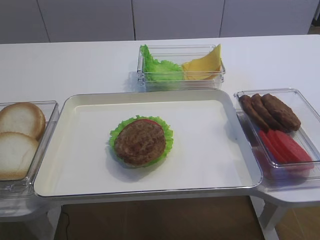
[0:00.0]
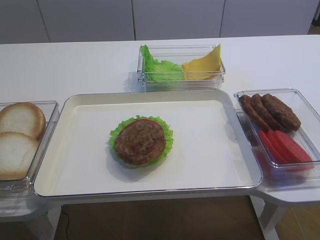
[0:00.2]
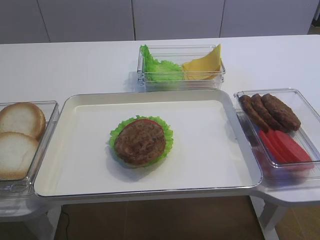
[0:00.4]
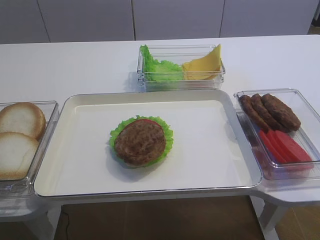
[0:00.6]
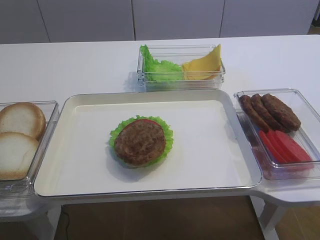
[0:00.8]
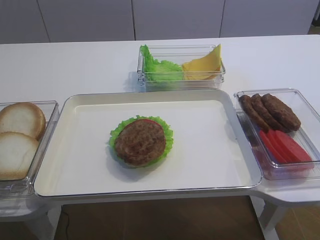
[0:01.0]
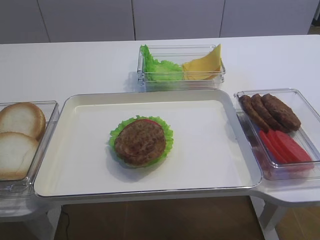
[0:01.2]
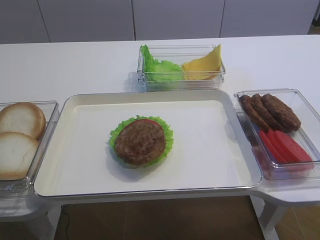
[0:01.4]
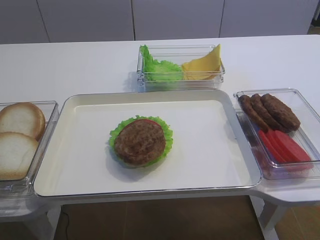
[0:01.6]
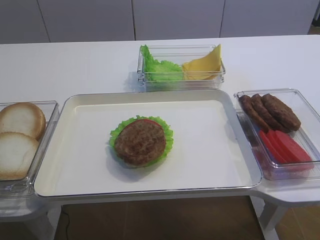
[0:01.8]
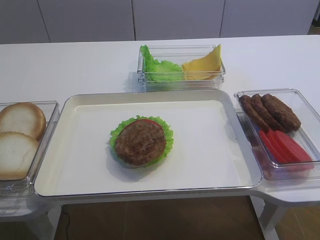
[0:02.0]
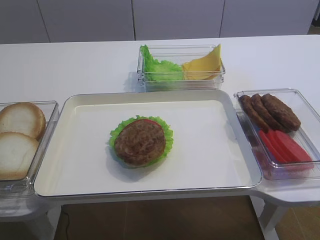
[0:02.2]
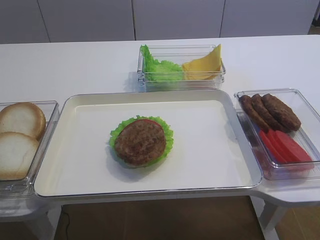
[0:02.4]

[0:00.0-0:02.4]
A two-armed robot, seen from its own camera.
0:00.0 to 0:01.2: The right gripper moves downward and backward, approximately 10 cm.

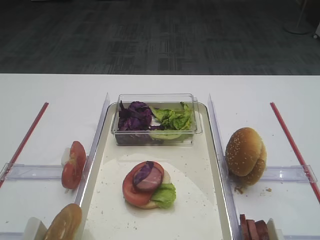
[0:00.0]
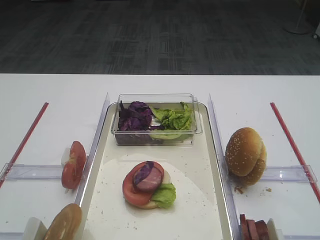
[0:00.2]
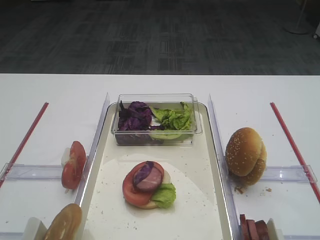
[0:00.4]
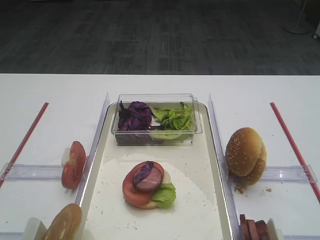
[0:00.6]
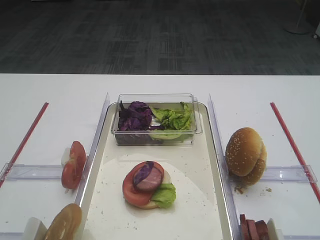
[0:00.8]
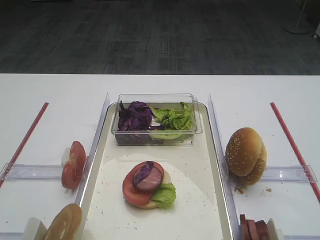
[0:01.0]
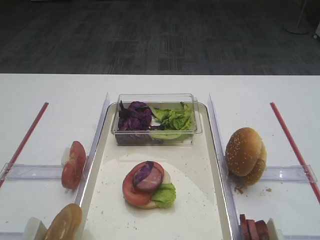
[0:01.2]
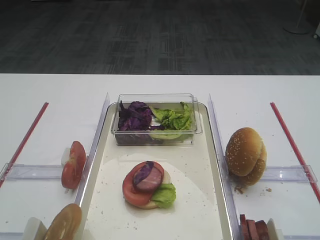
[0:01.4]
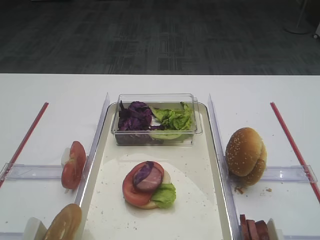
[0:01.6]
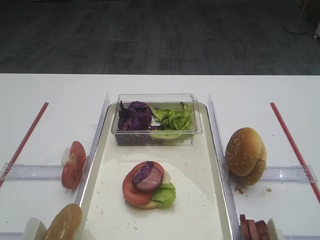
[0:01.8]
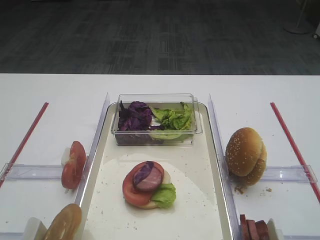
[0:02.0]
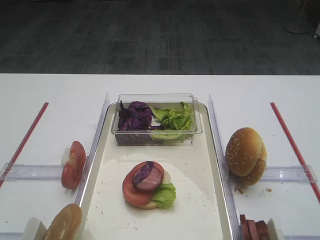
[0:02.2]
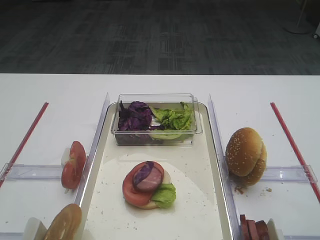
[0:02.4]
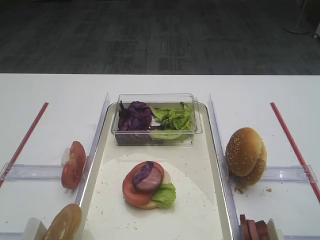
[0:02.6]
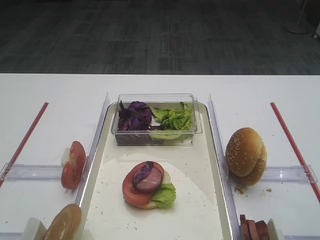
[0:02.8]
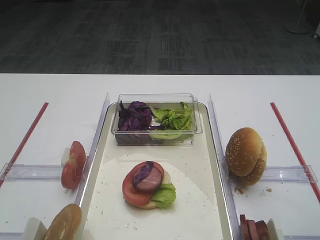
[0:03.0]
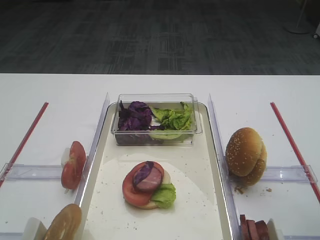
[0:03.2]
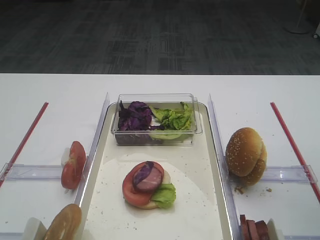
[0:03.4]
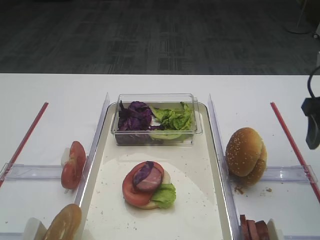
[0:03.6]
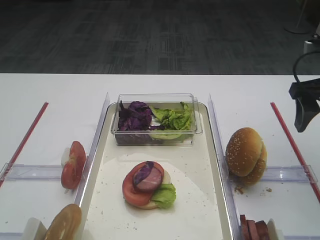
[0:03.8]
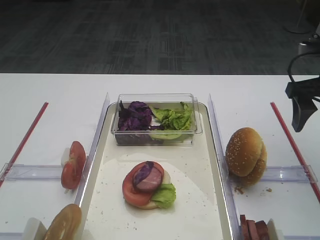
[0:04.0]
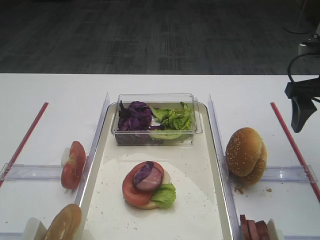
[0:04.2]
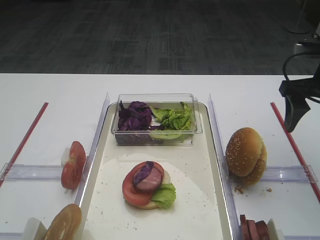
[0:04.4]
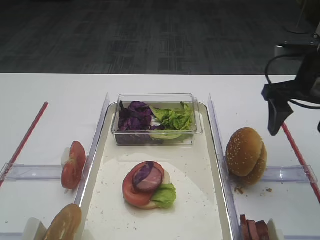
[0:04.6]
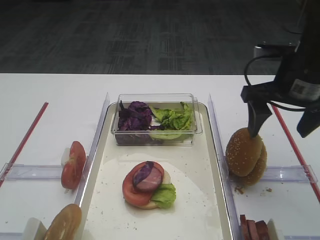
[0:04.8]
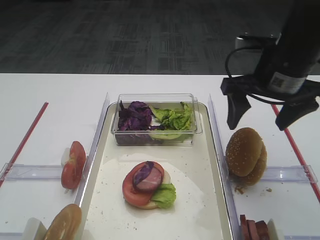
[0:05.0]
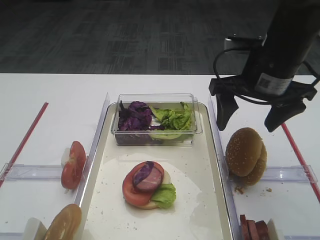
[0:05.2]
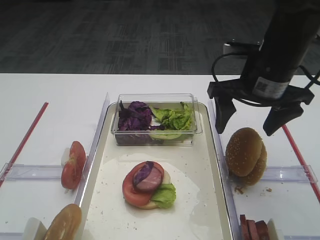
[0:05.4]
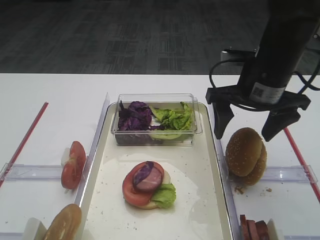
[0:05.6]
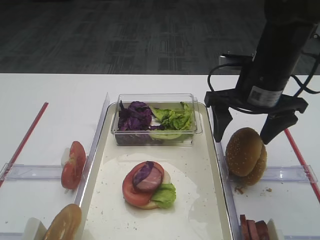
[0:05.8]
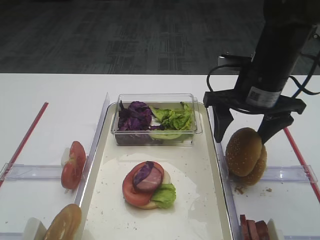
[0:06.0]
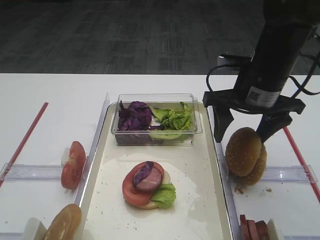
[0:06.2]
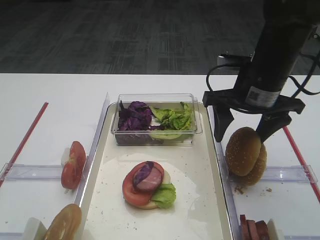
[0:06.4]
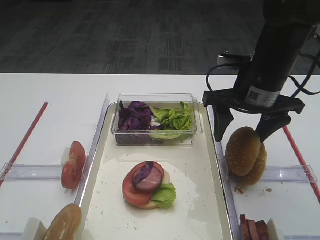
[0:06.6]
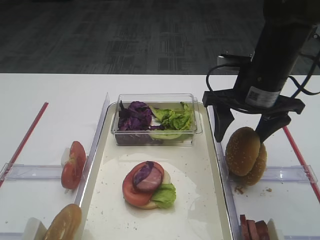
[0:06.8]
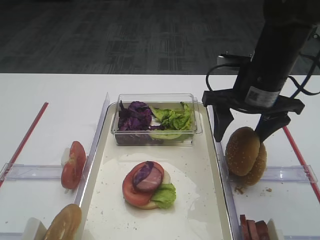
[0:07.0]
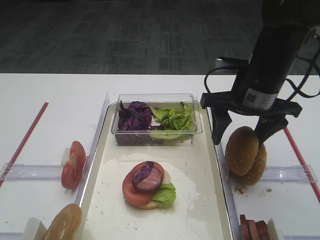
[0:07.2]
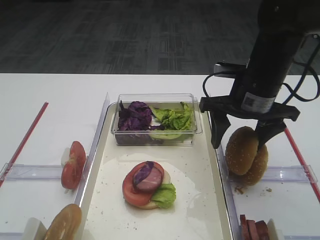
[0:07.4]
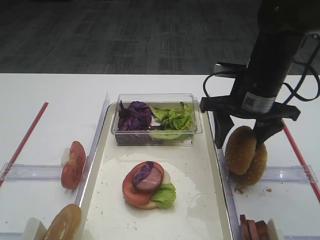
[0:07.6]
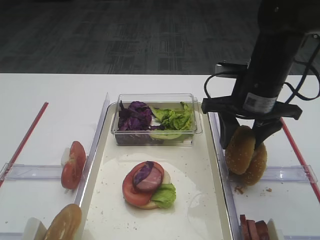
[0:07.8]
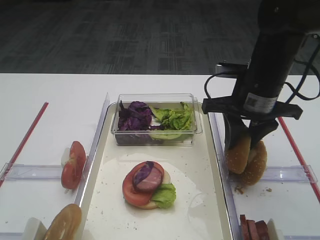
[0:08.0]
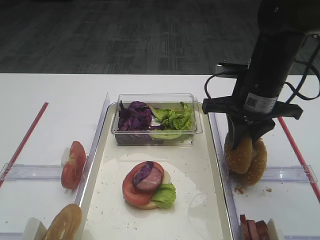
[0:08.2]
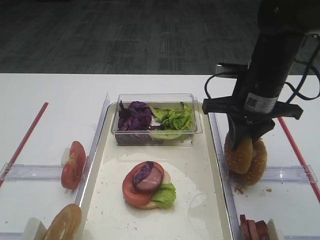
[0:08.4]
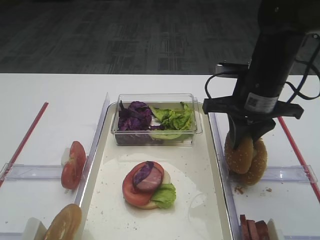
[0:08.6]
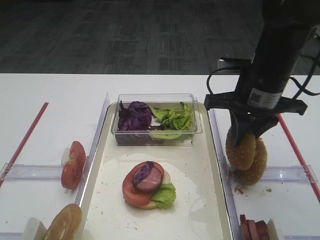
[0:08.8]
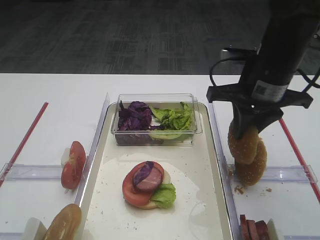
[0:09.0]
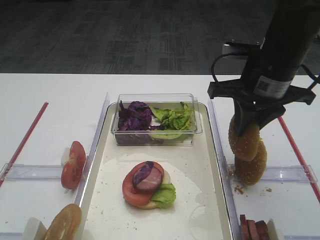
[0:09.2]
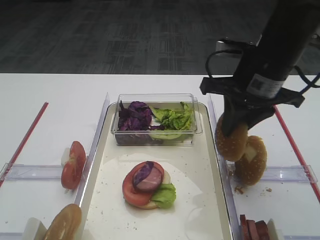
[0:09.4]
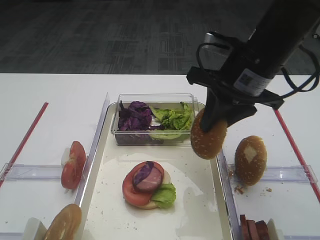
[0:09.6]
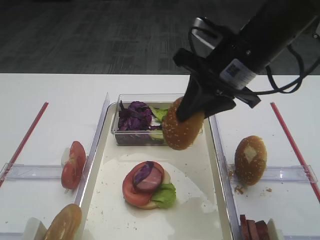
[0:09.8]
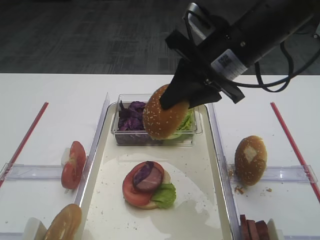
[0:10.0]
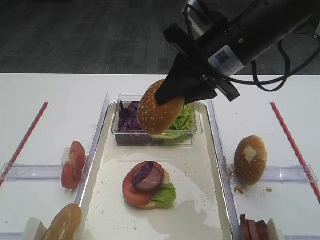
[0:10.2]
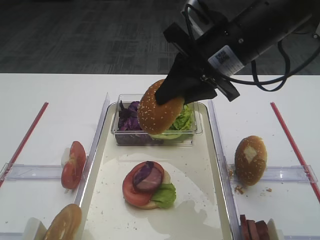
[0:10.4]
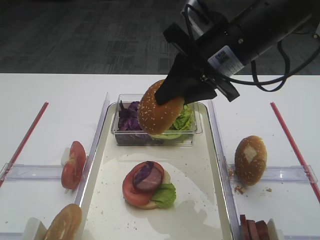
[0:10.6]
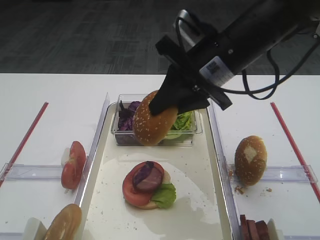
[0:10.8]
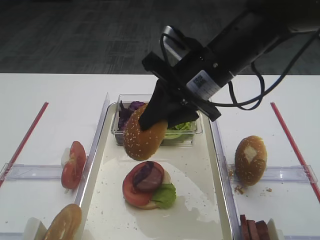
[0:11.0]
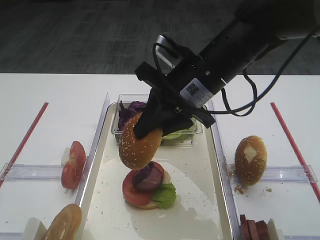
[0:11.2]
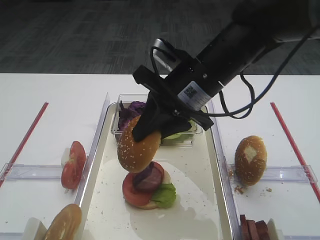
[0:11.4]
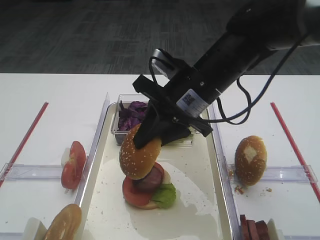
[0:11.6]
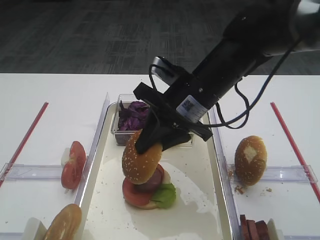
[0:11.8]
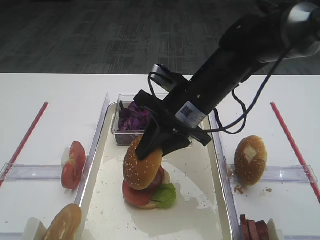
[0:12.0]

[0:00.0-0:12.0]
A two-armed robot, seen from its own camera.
Step, 0:00.0 to 0:09.0: Pick up the hamburger lid with the right gripper.
0:03.0 to 0:04.4: The right gripper heads forward, covering about 20 cm.
0:04.4 to 0:06.0: The right gripper is displaced to the left by roughly 10 cm.
0:06.0 to 0:07.6: The two grippers keep their place.
0:07.6 to 0:09.0: The right gripper closes up.
0:09.0 to 0:10.4: The right gripper shifts roughly 5 cm to the left.
0:10.4 to 0:12.0: The right gripper goes about 10 cm downward.

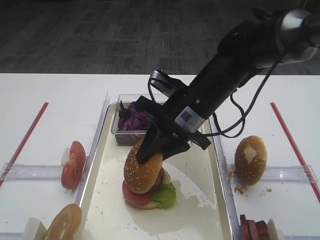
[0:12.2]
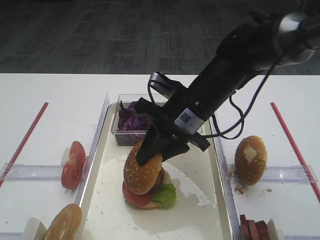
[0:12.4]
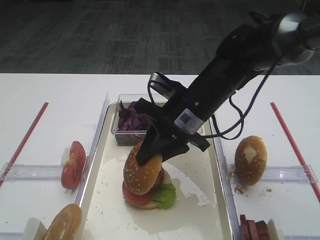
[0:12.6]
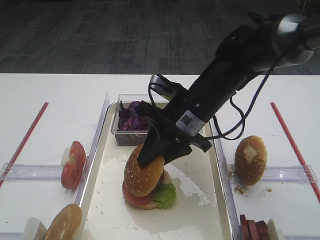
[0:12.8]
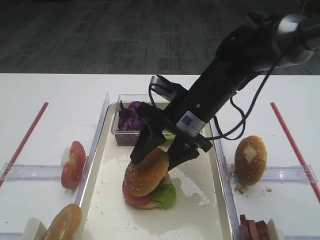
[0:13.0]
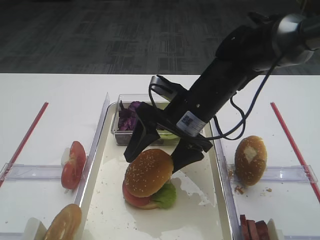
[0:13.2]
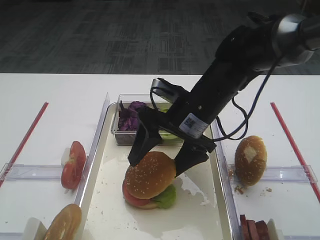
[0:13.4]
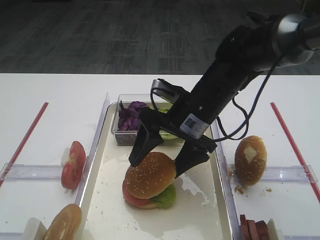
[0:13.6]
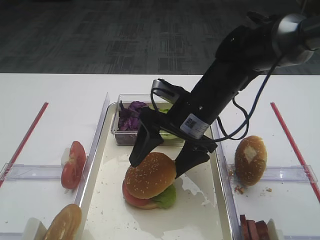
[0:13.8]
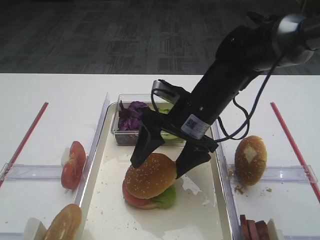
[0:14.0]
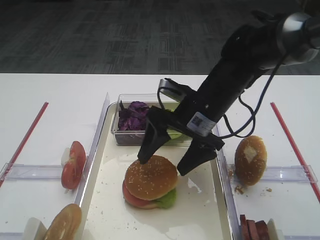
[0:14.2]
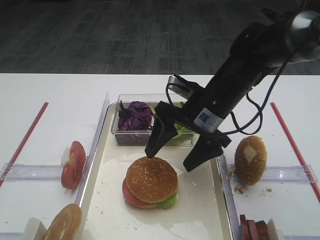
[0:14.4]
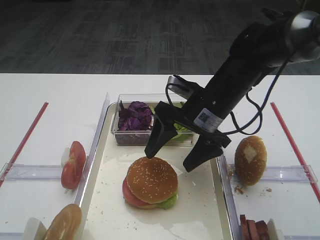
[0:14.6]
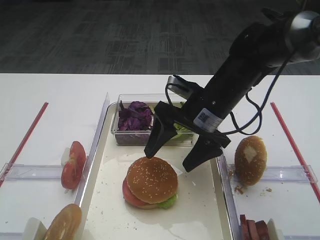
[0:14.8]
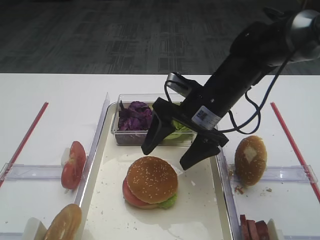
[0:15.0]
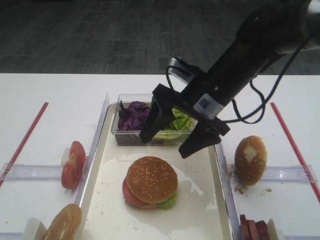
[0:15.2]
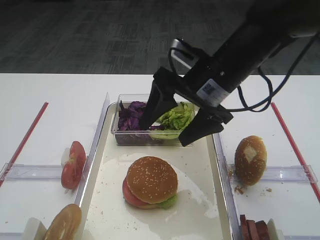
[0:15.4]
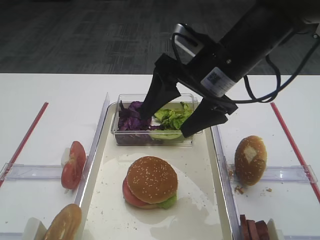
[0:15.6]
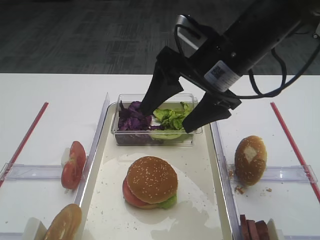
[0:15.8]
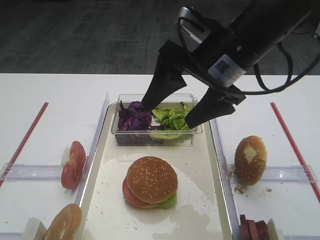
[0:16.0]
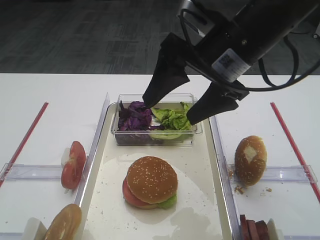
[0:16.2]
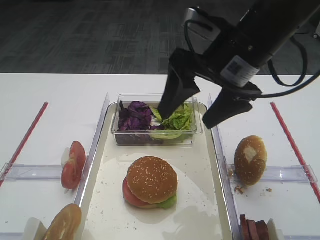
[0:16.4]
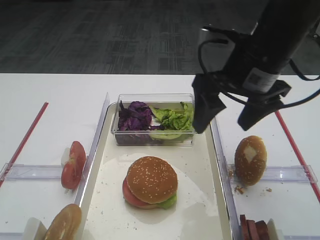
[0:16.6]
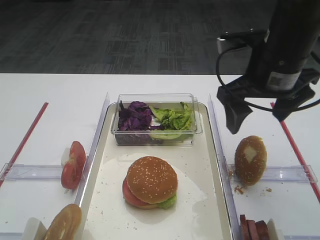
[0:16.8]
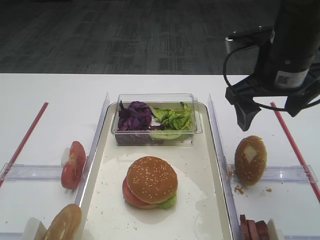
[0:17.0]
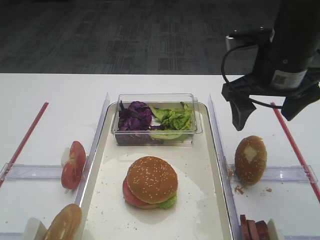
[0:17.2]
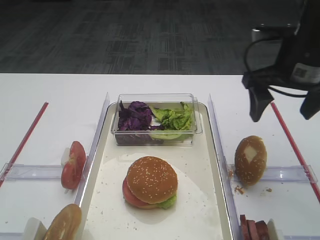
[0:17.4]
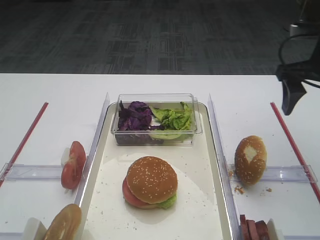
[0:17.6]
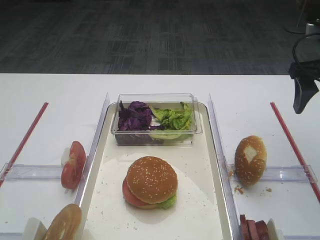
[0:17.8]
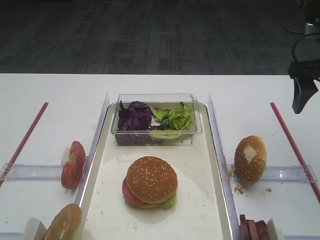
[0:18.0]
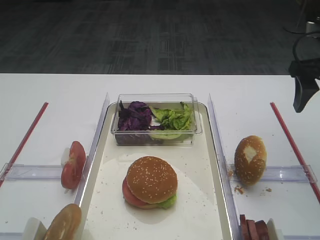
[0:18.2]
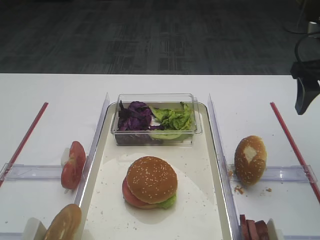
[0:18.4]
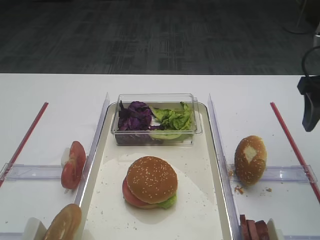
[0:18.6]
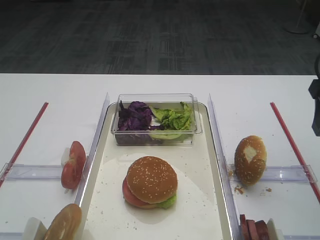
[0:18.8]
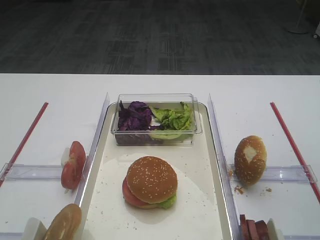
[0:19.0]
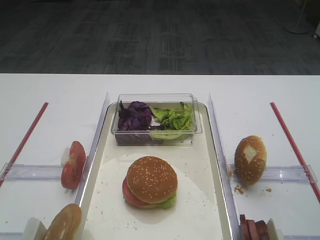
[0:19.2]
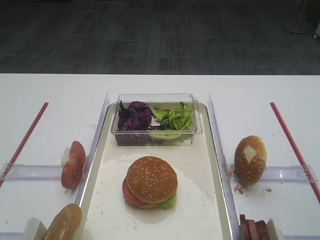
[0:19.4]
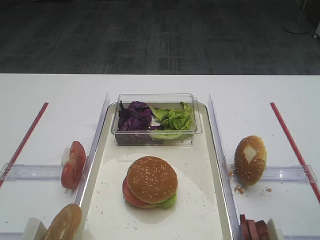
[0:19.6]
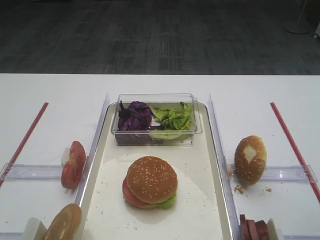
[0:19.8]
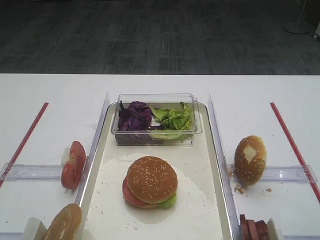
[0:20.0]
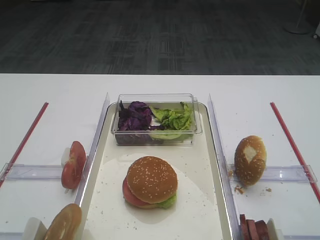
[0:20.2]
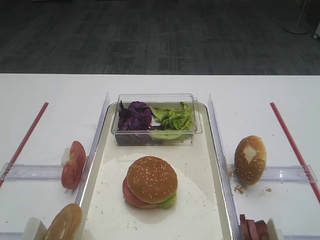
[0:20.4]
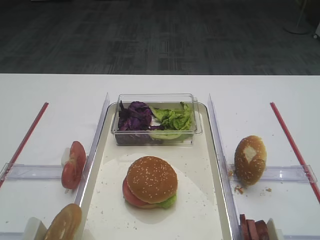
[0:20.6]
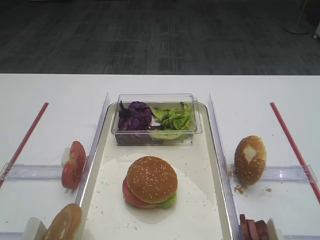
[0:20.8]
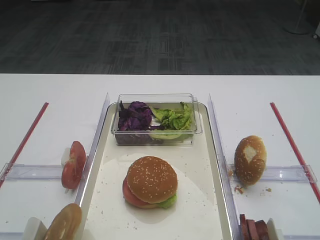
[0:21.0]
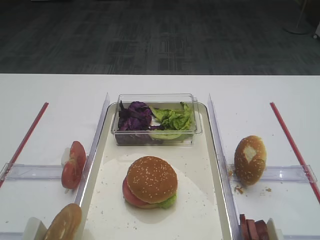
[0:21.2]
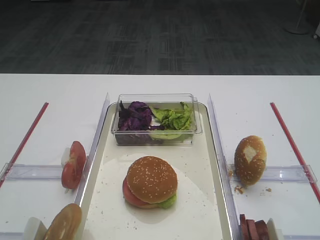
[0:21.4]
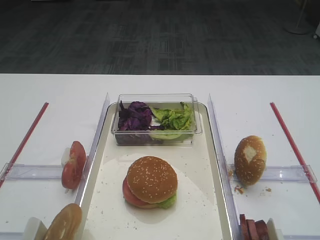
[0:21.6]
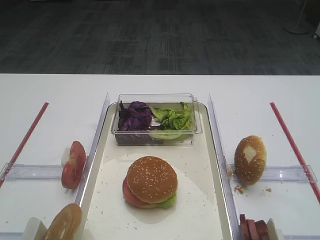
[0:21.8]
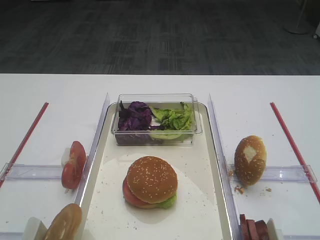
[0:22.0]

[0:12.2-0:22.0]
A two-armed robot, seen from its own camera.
Step, 0:12.2 to 0:15.0: Place the hamburger lid on the purple cabbage with the right gripper.
0:12.2 to 0:13.6: The right gripper opens its fingers.
0:13.6 to 0:15.0: The grippers make only small movements.
0:15.0 to 0:16.4: The right gripper heads upward, covering approximately 10 cm.
0:16.4 to 0:17.8: The right gripper travels to the right by some 15 cm.
0:17.8 to 0:19.2: The right gripper goes about 10 cm backward.
